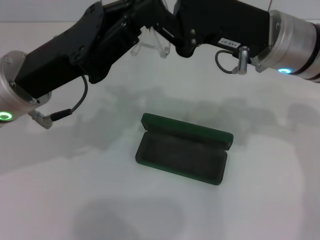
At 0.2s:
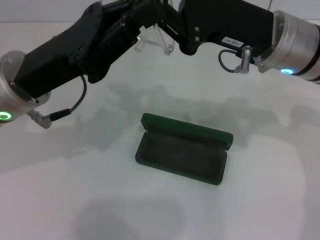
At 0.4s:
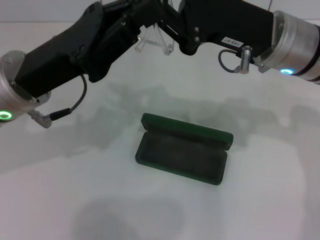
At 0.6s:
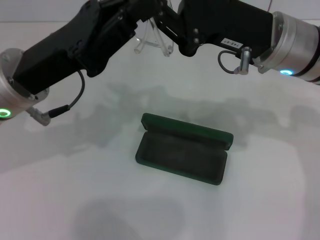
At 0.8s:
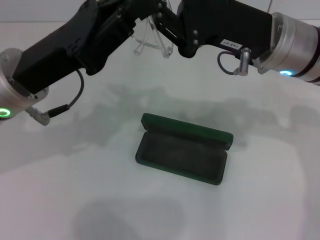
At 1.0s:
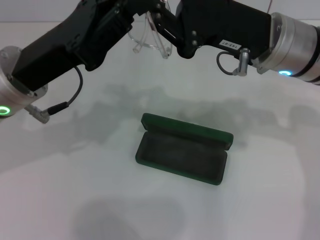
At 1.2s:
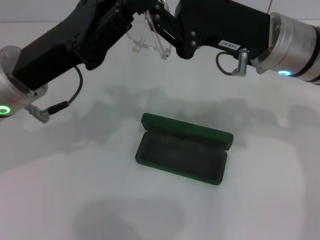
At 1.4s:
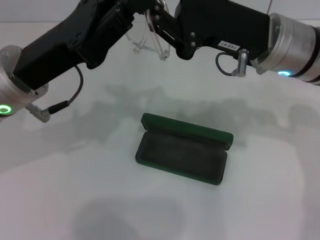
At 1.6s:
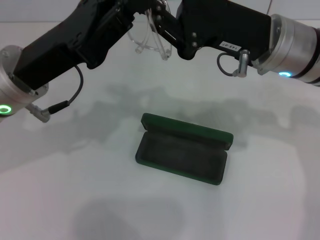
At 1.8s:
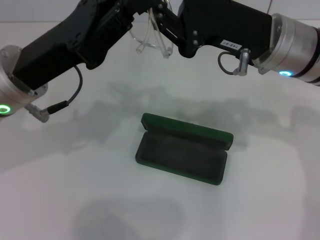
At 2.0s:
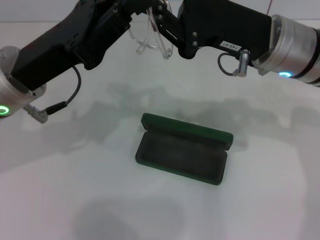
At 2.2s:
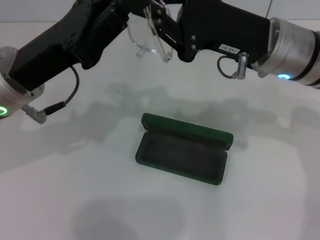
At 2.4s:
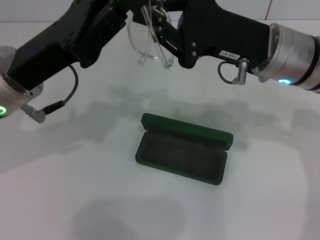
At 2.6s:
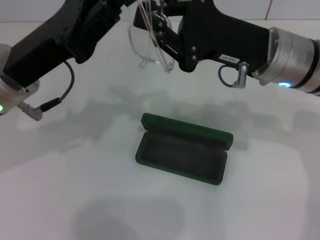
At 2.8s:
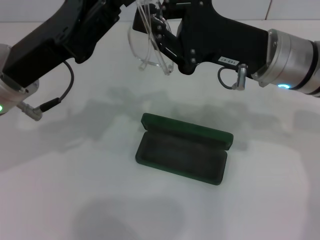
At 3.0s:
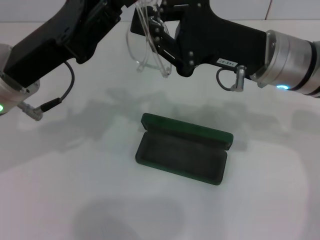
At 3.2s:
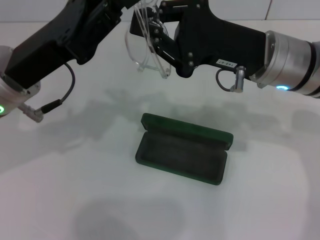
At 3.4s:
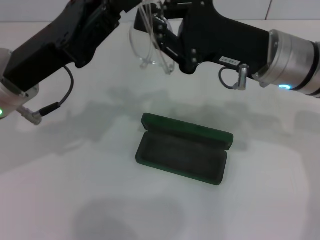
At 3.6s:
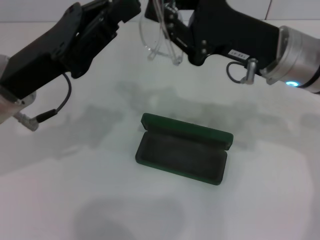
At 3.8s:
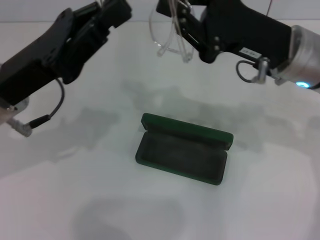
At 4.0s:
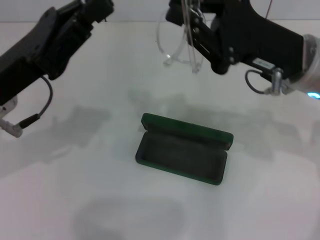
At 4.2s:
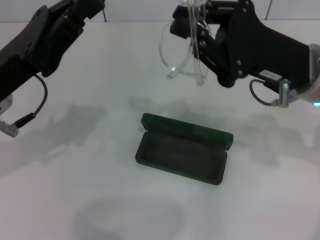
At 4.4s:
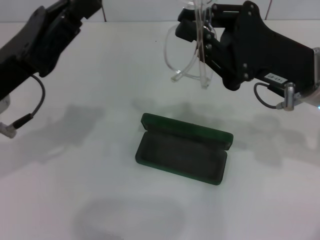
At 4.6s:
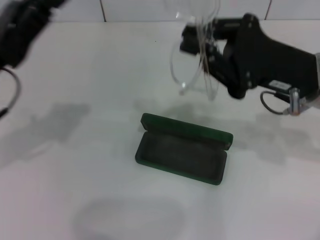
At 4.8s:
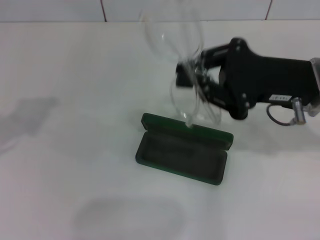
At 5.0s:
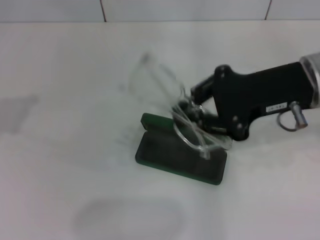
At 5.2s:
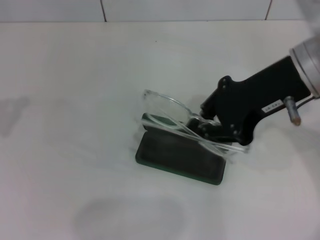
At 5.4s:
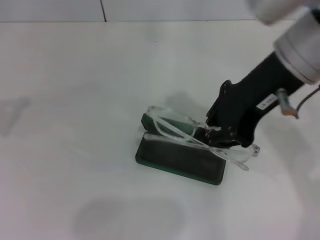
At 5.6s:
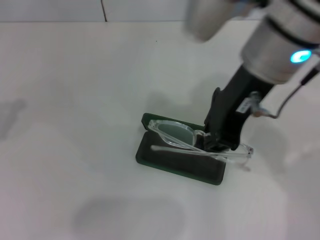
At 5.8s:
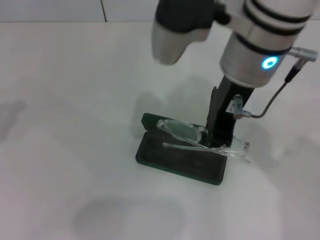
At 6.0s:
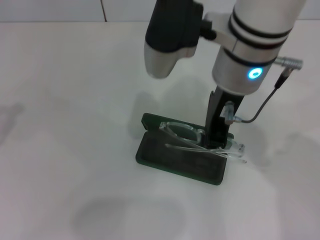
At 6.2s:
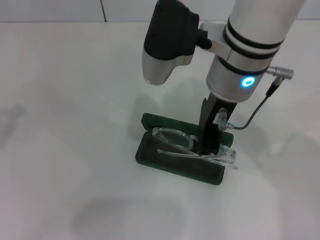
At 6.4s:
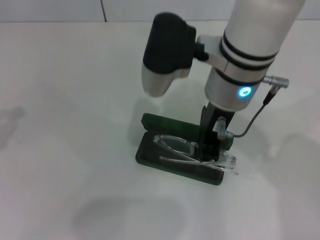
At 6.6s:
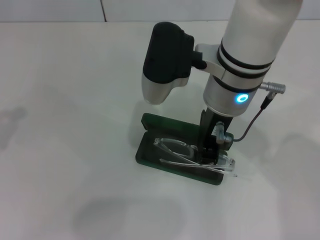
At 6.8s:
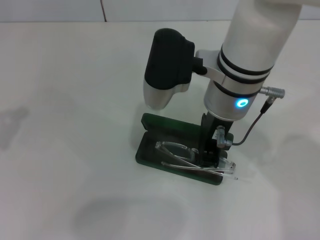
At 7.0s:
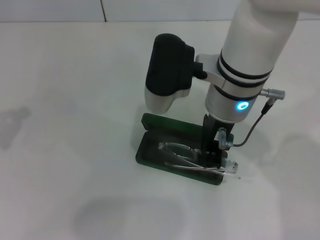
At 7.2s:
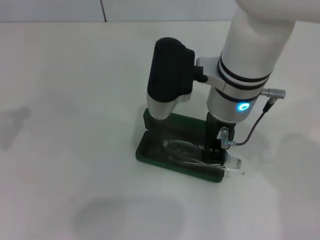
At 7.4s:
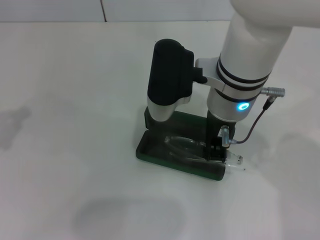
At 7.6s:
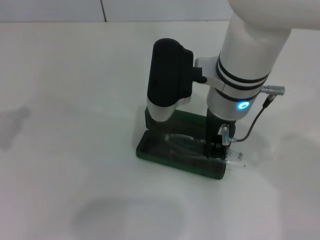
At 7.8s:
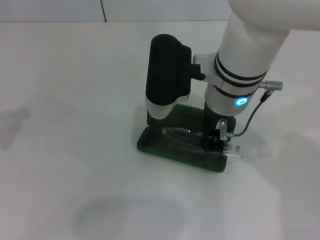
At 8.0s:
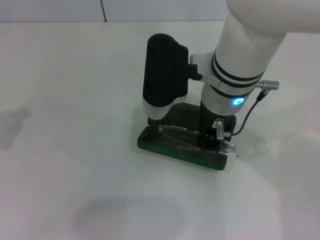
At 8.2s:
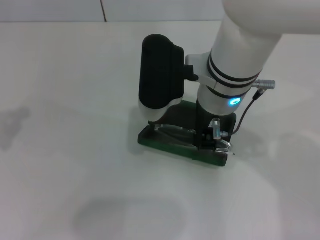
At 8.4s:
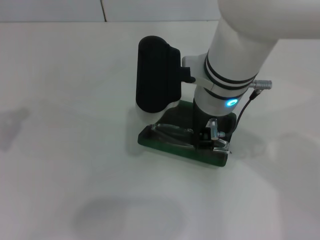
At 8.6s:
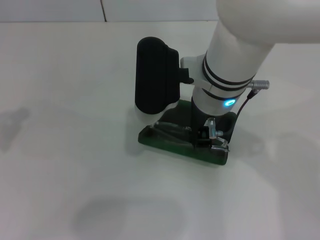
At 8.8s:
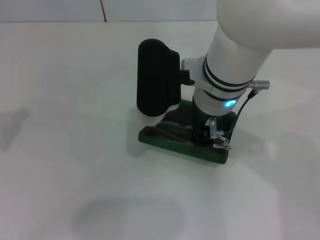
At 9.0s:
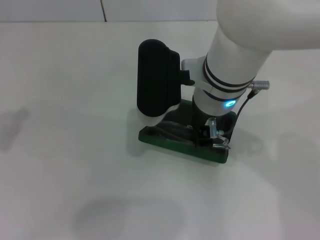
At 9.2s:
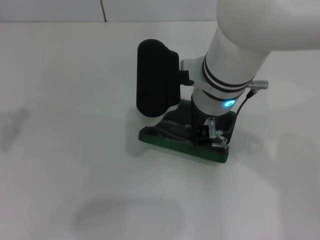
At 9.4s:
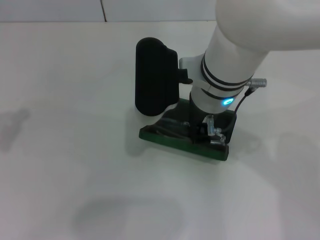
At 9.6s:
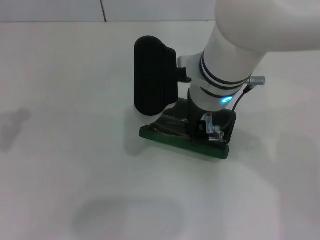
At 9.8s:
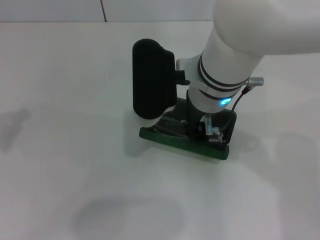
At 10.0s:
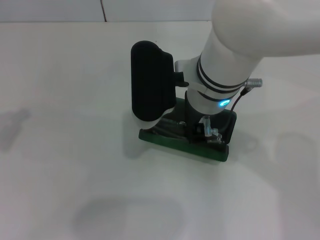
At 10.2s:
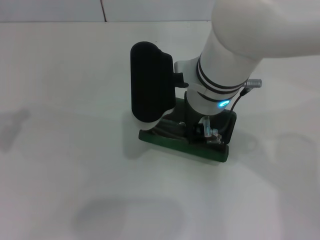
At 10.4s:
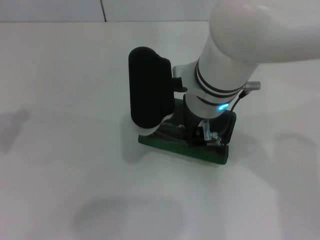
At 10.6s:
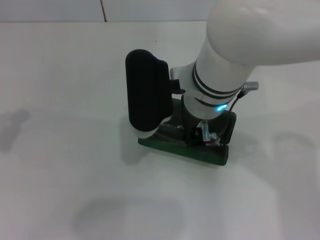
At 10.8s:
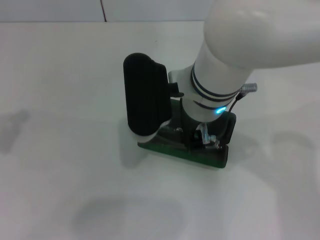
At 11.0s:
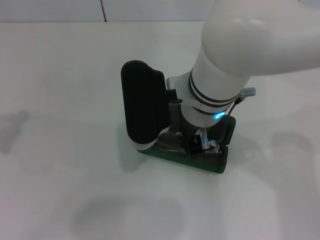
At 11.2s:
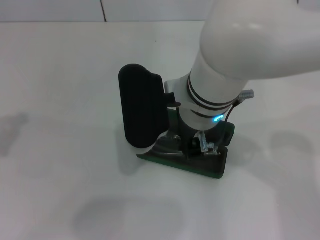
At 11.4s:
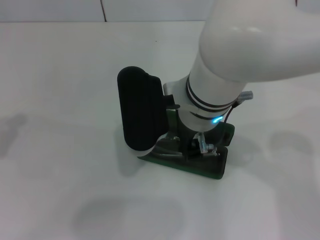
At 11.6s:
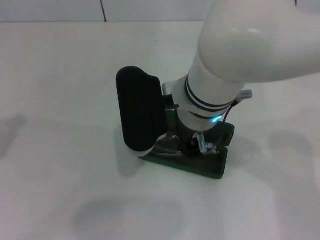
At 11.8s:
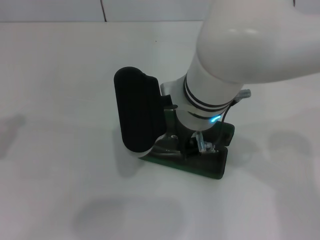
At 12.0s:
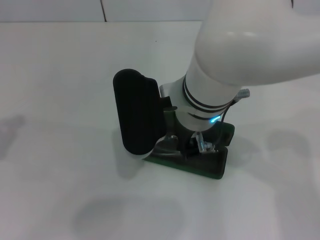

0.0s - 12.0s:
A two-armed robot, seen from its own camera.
Step, 0.0s - 2.2s: Fold the frame with your left hand.
0.0s - 1.6s: The two grippers keep their place.
1.6s - 3.0s: The grippers stay close to where they were, moving slightly.
4.4s - 6.0s: The right gripper goes approximately 15 cm to the left and upward. The left gripper shifts roughly 15 cm to the left.
6.0s - 7.6s: The right gripper travels downward by roughly 5 cm.
7.6s - 9.0s: The grippers move only a little.
9.0s - 10.4s: Both grippers stay about where they are.
10.4s - 12.0s: The grippers make only small movements.

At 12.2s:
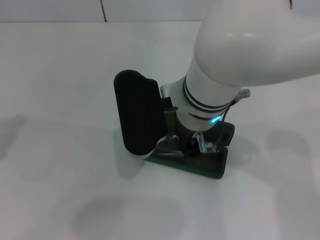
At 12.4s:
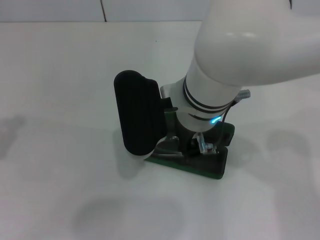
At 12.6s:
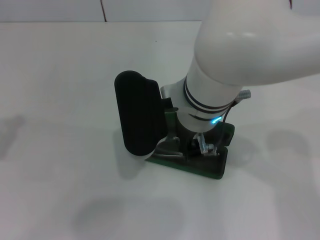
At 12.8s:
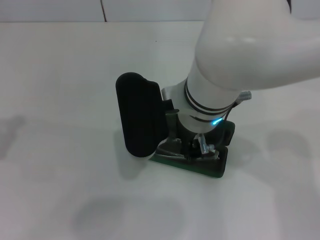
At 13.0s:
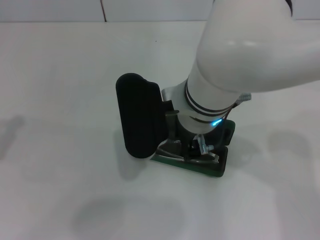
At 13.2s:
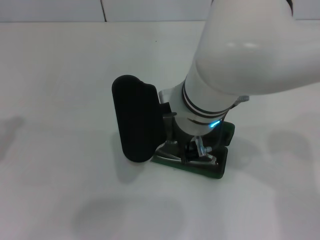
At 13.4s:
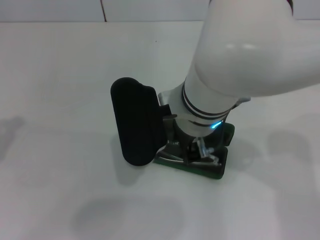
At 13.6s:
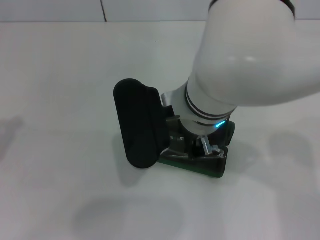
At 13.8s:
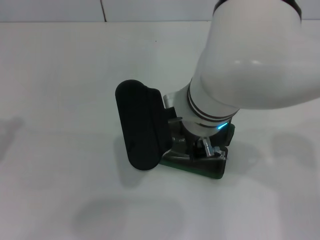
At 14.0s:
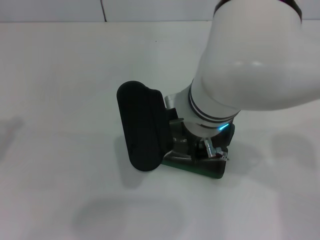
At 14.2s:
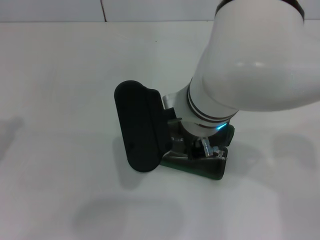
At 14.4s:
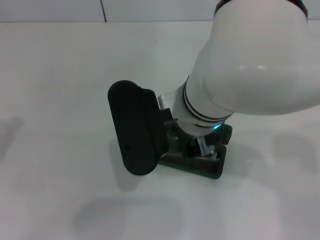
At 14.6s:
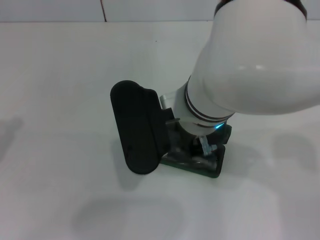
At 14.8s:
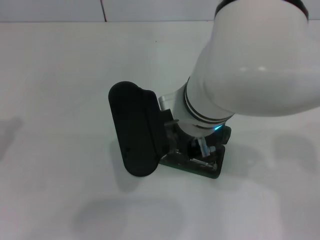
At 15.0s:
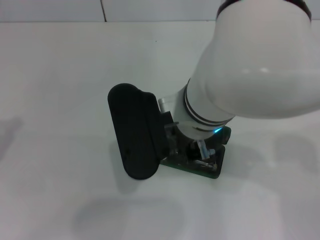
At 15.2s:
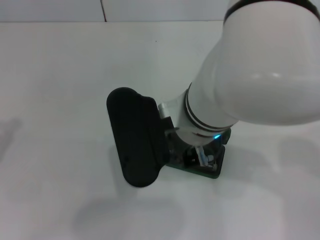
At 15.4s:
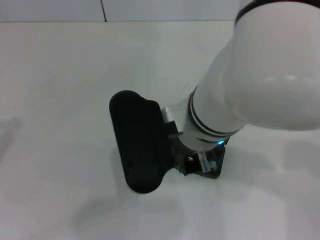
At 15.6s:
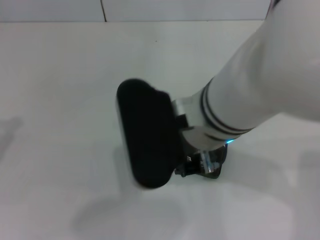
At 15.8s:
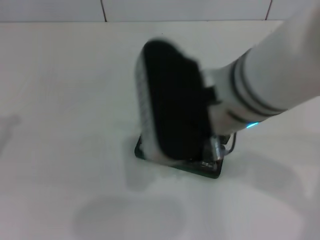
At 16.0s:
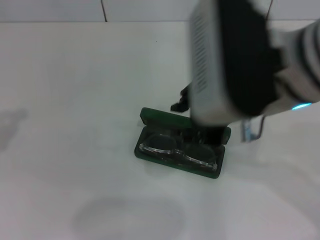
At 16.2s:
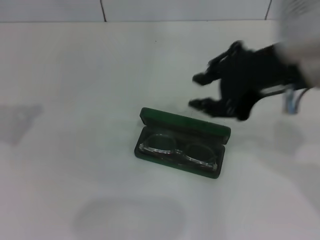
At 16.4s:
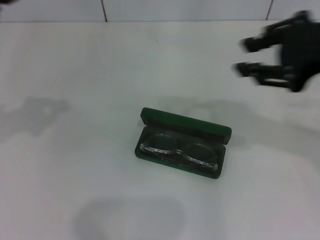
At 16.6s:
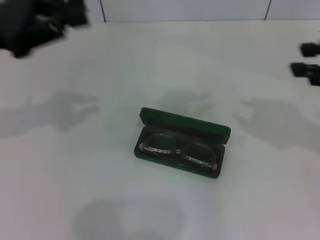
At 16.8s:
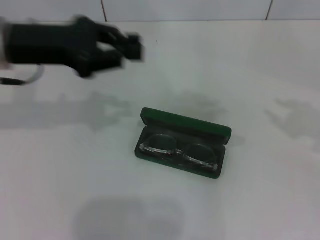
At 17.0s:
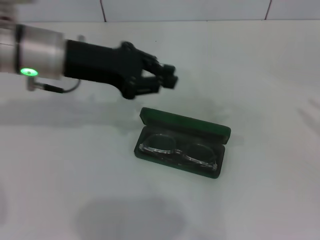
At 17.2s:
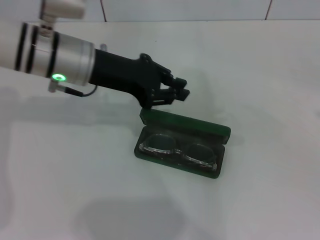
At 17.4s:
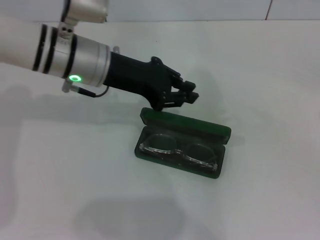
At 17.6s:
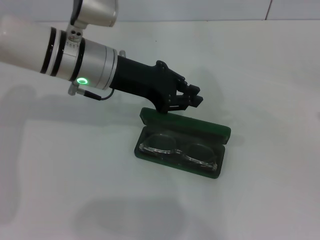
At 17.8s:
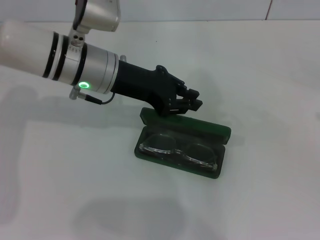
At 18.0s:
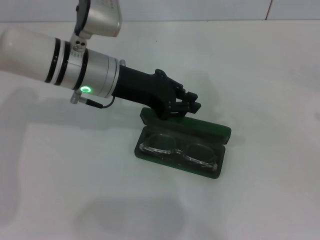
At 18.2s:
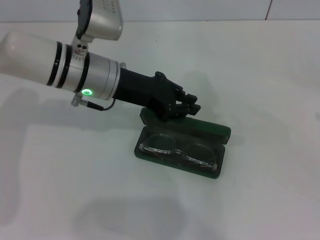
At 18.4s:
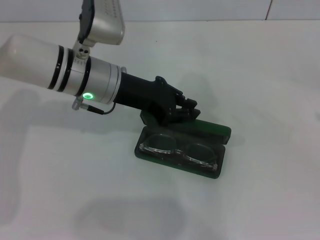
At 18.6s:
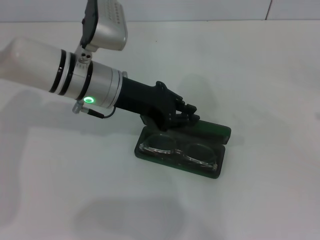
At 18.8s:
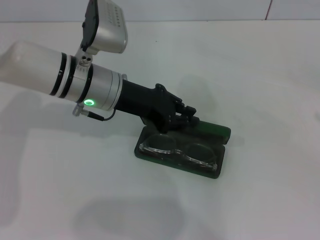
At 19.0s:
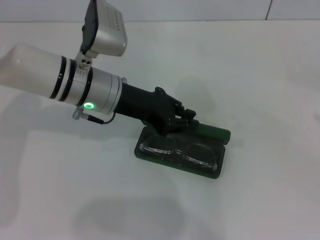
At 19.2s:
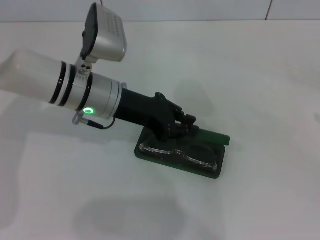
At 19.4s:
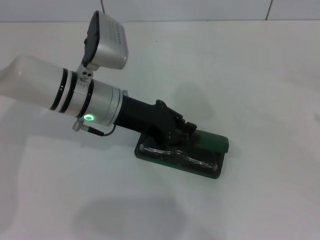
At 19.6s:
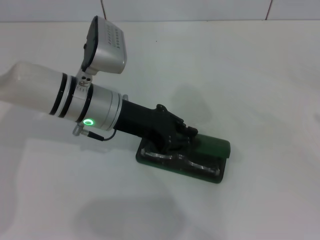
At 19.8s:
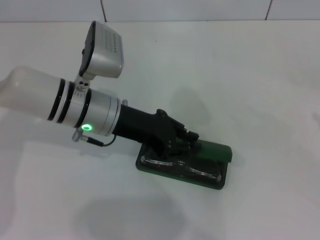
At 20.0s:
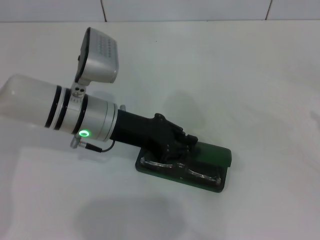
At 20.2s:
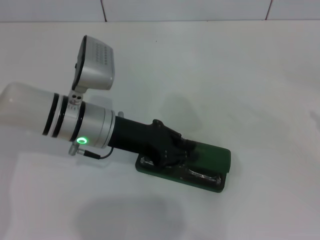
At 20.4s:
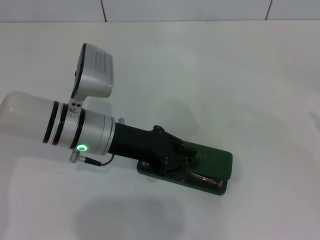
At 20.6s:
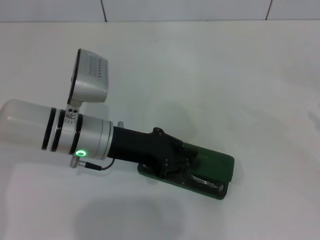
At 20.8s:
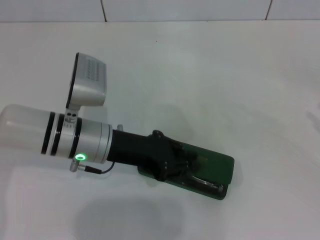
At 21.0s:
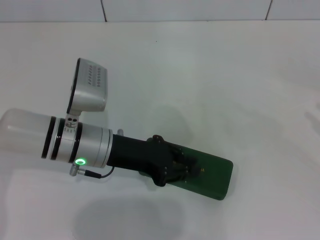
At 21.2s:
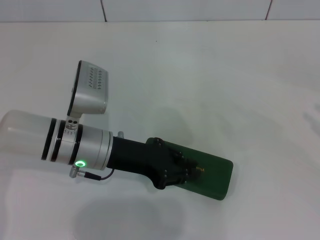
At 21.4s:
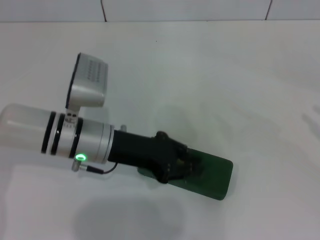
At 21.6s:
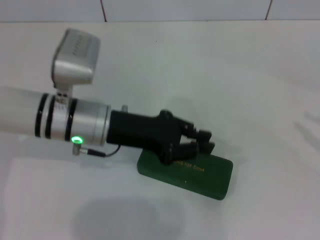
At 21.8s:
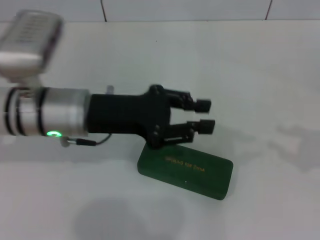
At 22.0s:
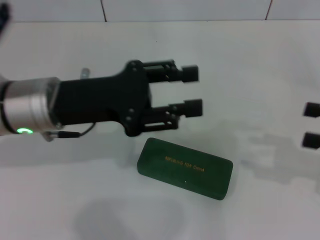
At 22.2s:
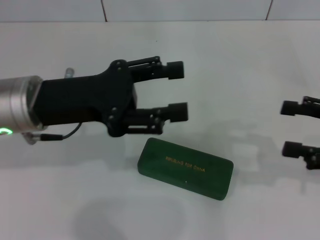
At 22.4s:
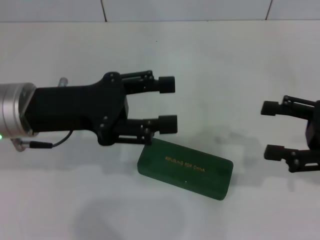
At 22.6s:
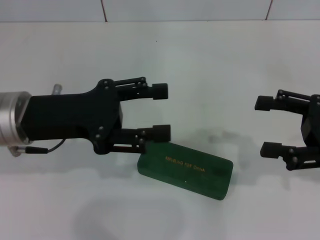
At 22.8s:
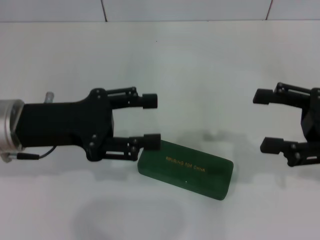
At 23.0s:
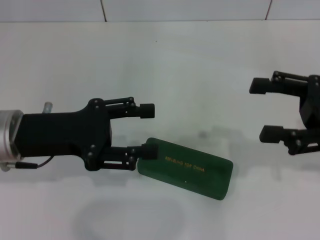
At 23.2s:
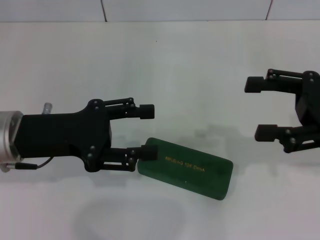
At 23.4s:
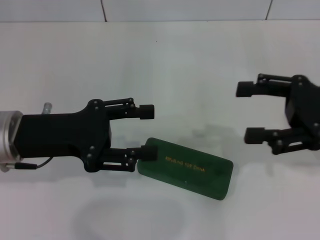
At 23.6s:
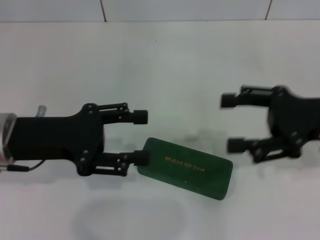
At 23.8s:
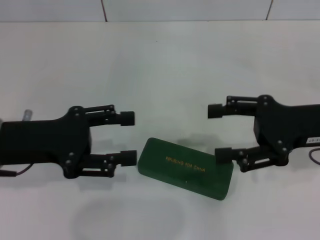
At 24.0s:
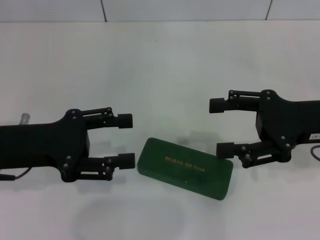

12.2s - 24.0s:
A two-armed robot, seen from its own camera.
Step, 12.2s - 15.6s: Put the glasses into the case with your right hand.
Step, 15.8s - 21.4s: Close the glasses case with your left hand.
12.2s - 13.6s: The two grippers keep their place.
13.6s - 15.2s: The grippers make only small movements.
15.2s - 16.6s: The right gripper shifts about 30 cm to the right, while the left gripper travels forward, to the right and upward by some 15 cm.
16.6s - 18.2s: Both grippers travel together to the right and downward, some 20 cm.
18.2s - 19.6s: The grippers stay close to where they were, moving slightly.
19.6s - 21.0s: The left gripper changes place by roughly 5 cm.
21.0s - 22.6s: The left gripper goes about 10 cm upward and to the left, and opens up. Meanwhile the right gripper moves to the left, about 15 cm, and opens its fingers.
22.6s - 24.0s: The left gripper moves some 5 cm, while the right gripper shifts about 5 cm to the left.
